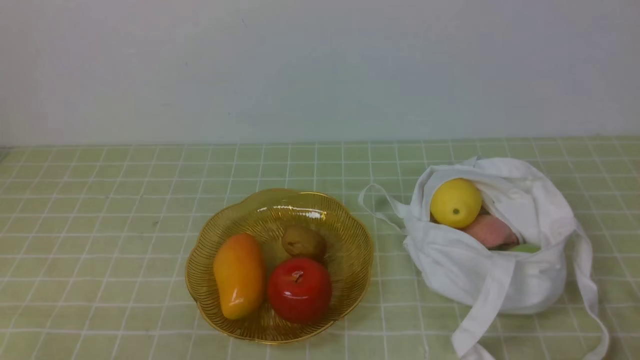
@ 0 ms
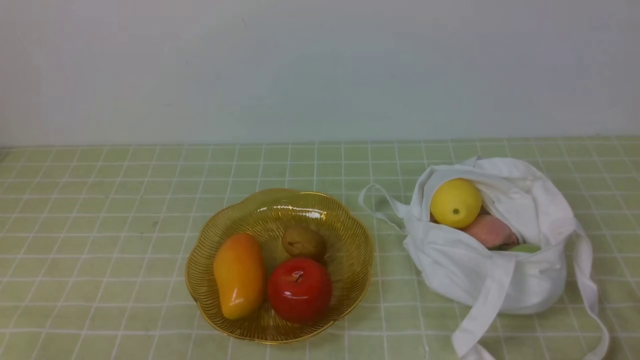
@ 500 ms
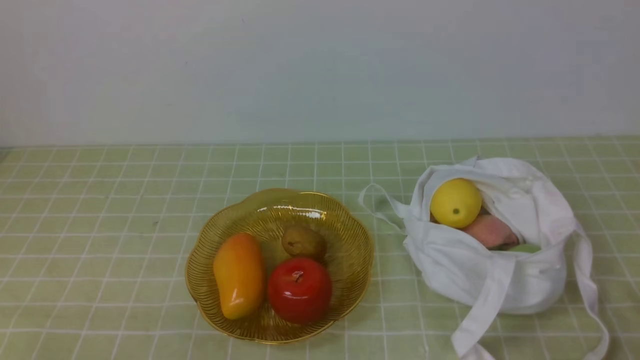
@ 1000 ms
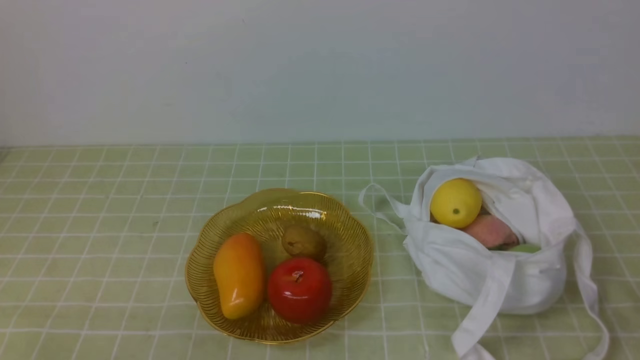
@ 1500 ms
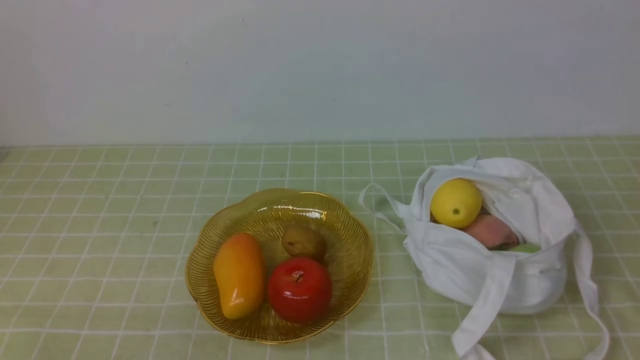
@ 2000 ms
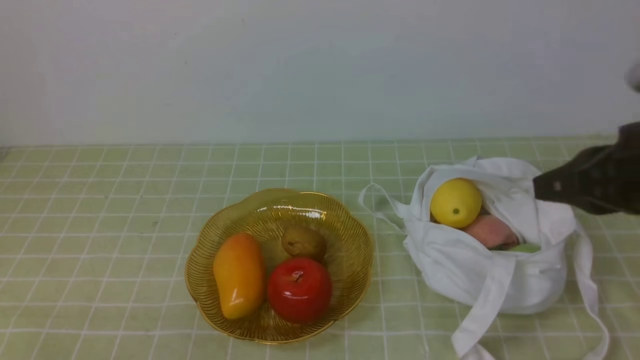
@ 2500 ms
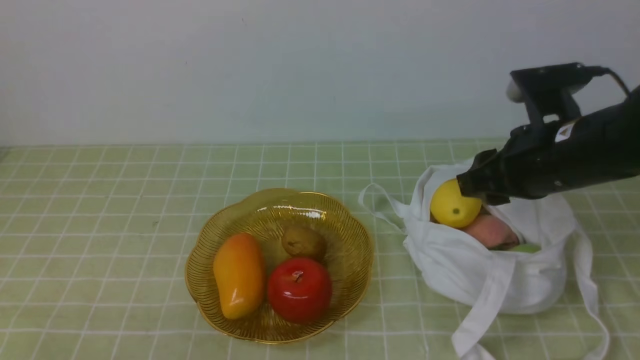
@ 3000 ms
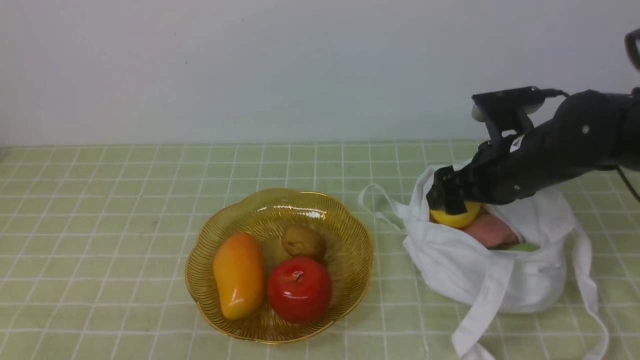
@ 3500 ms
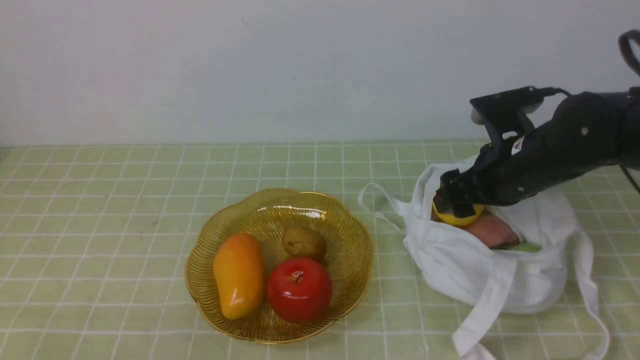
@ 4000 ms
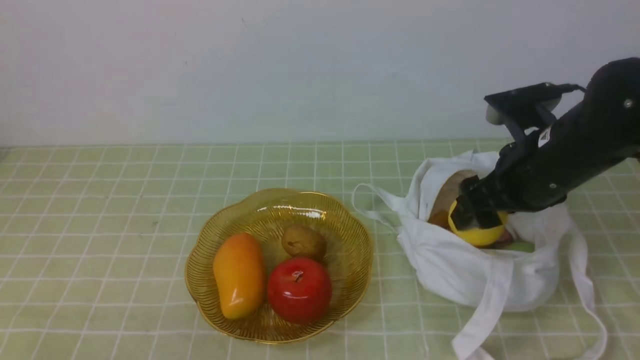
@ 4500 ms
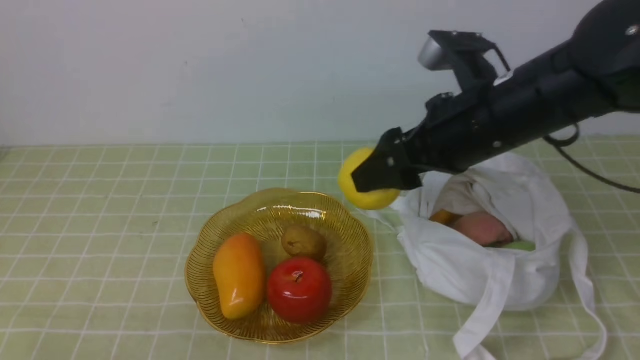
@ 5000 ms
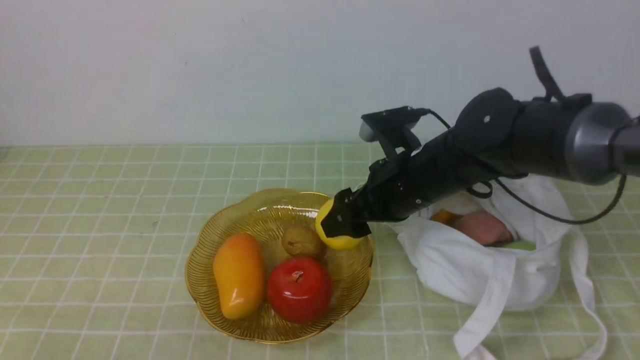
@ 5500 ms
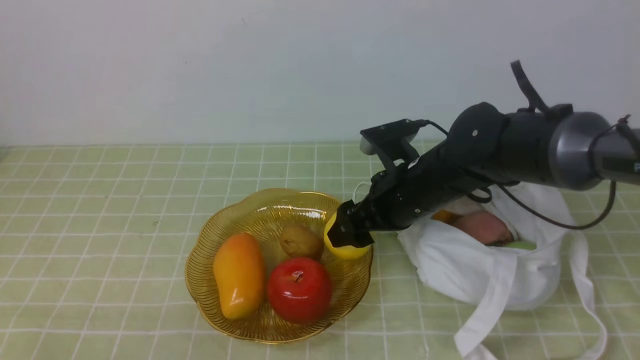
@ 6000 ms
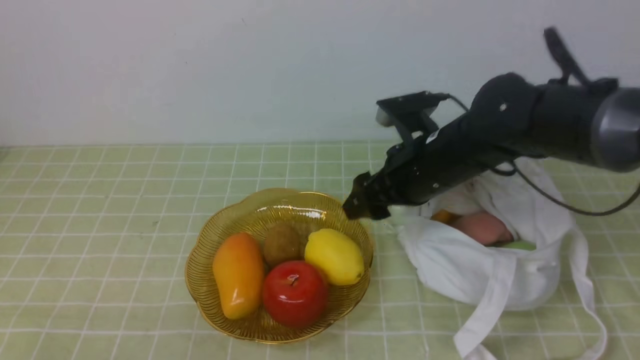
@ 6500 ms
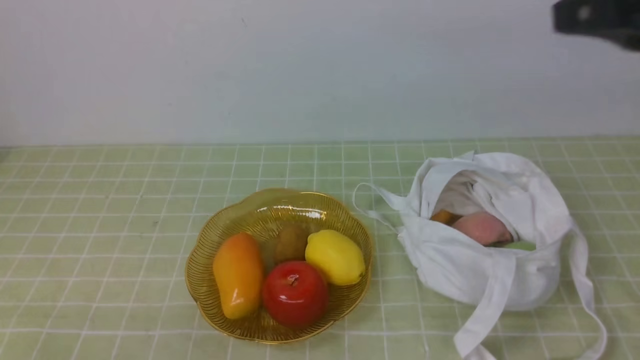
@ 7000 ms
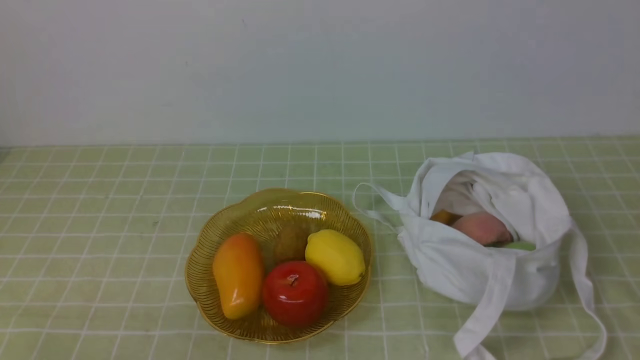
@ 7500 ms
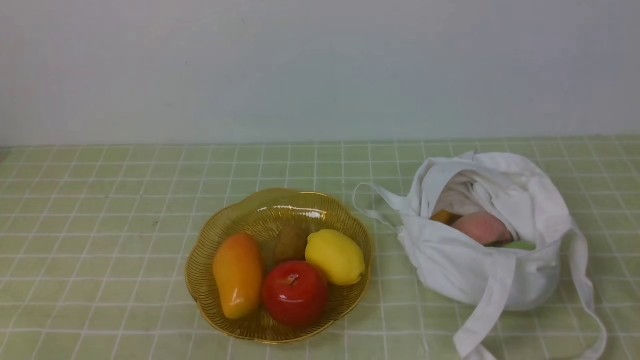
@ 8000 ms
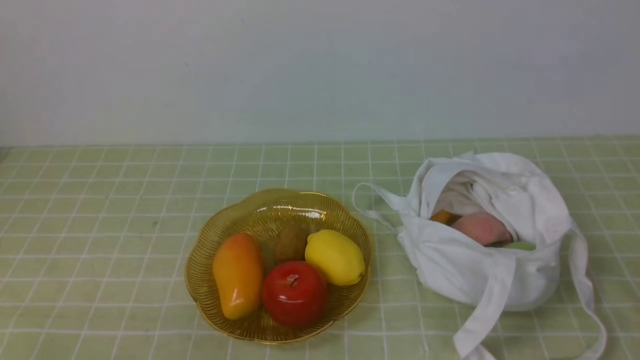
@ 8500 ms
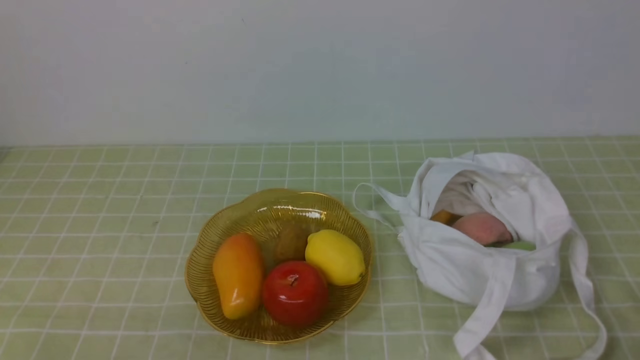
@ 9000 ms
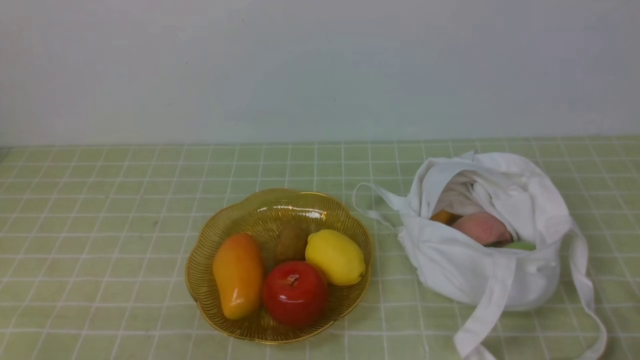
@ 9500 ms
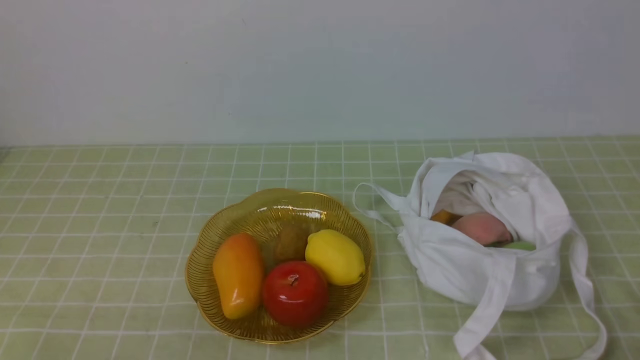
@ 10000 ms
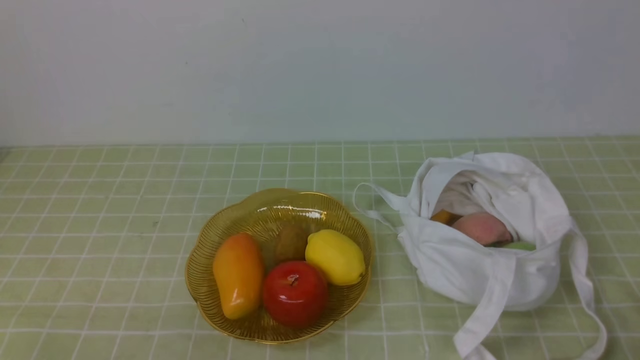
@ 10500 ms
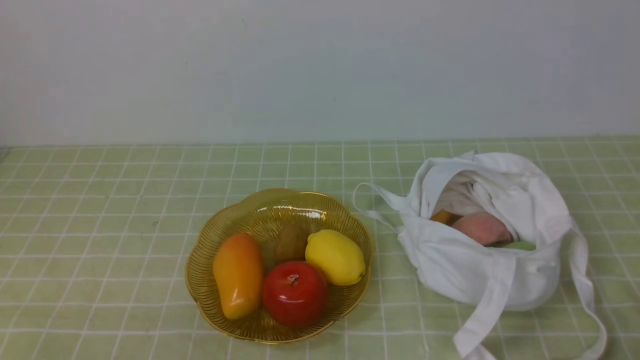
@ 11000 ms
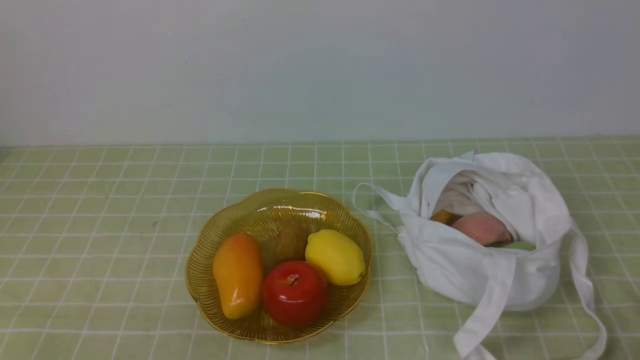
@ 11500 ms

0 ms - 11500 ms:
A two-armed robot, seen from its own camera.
Step, 0 ms - 4000 ms: use the right arm to grab a lemon from the bag.
Step, 4500 ms - 6000 ms: use the right arm to put the lemon into the empty plate on the left.
2000 ms - 4000 ms: The right gripper goes approximately 25 cm forward, and opens.
4000 ms - 6000 ms: The right gripper goes approximately 10 cm to the left, and goes upward and returns, roughly 10 cm each way.
6000 ms - 7500 ms: The right gripper heads backward, to the right and upward, covering some 40 cm, and closes up.
9500 ms - 11500 ms: Both grippers stay put.
